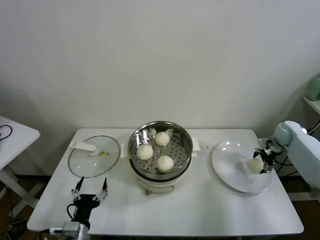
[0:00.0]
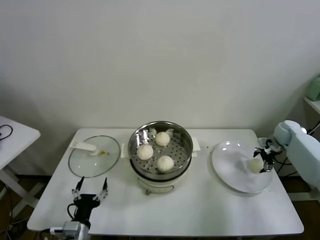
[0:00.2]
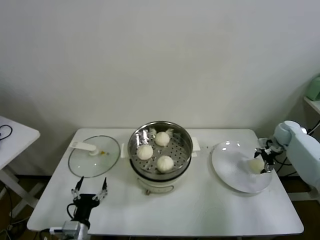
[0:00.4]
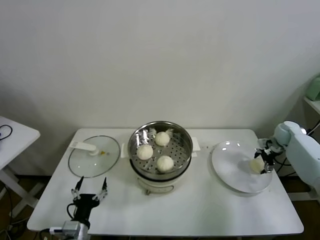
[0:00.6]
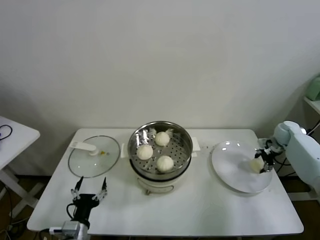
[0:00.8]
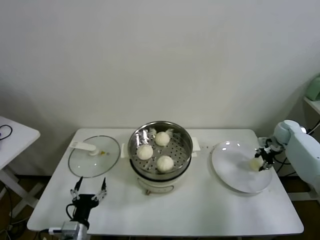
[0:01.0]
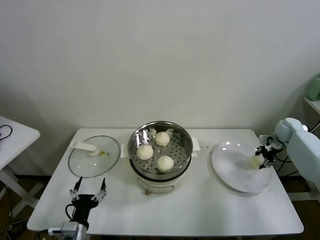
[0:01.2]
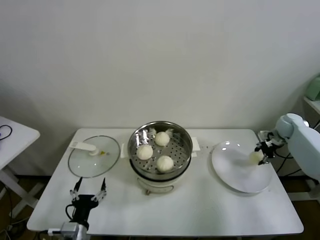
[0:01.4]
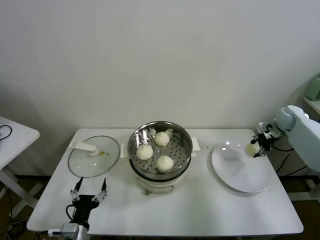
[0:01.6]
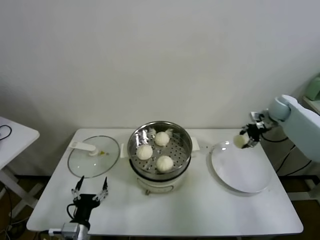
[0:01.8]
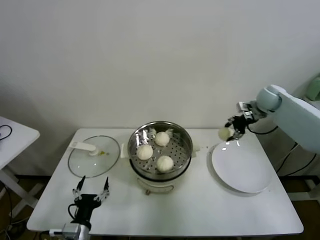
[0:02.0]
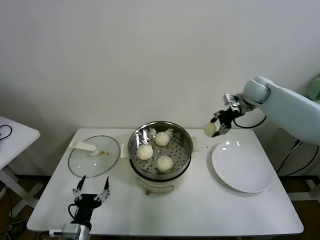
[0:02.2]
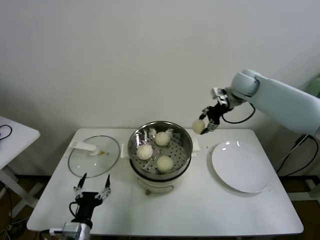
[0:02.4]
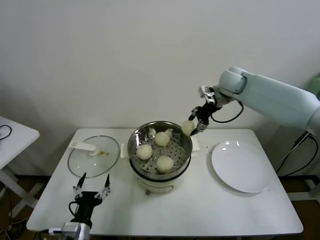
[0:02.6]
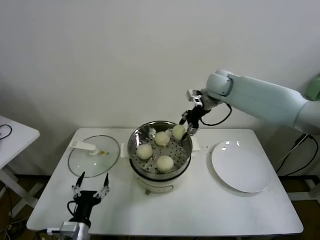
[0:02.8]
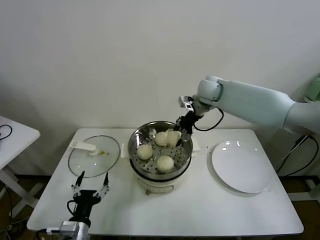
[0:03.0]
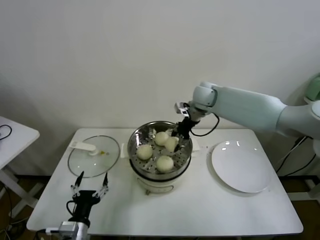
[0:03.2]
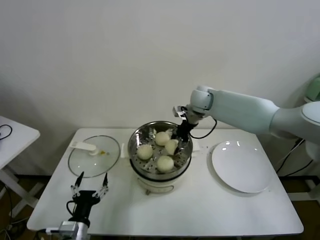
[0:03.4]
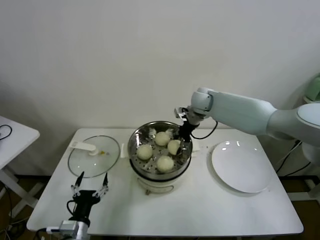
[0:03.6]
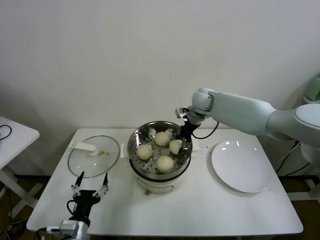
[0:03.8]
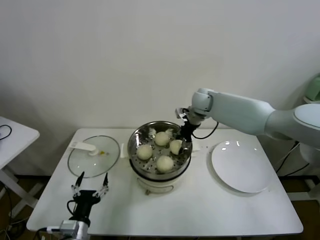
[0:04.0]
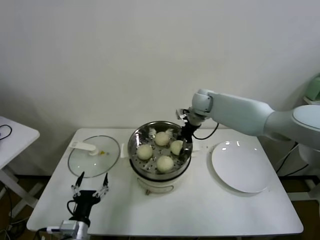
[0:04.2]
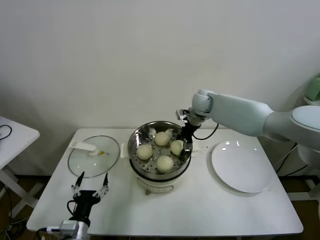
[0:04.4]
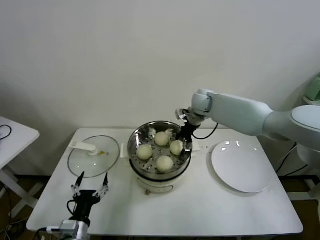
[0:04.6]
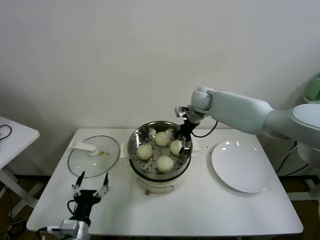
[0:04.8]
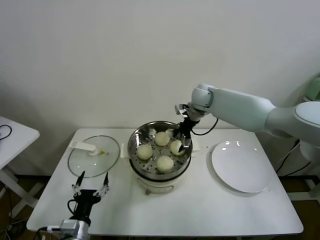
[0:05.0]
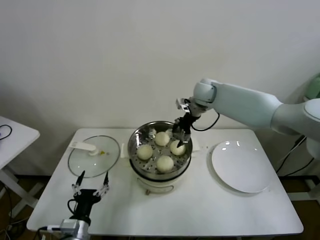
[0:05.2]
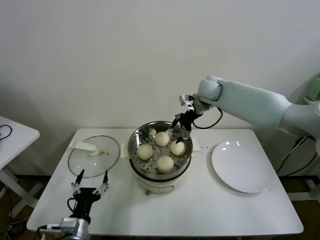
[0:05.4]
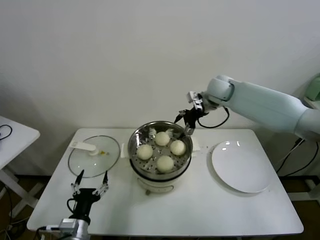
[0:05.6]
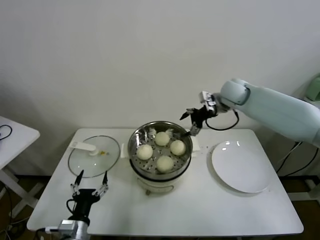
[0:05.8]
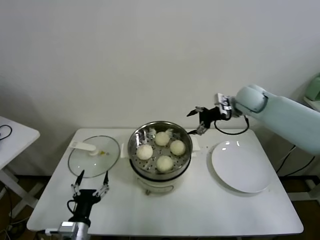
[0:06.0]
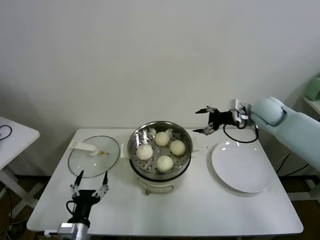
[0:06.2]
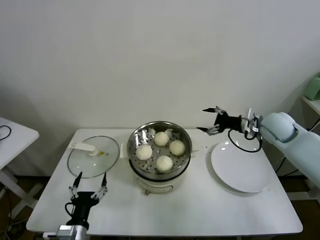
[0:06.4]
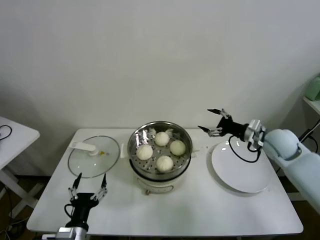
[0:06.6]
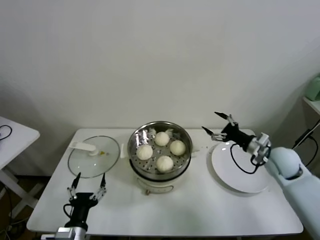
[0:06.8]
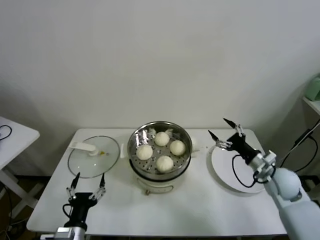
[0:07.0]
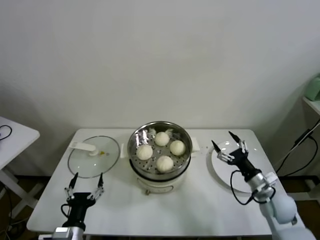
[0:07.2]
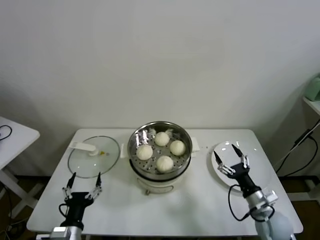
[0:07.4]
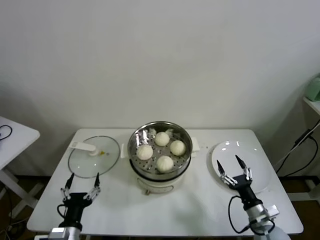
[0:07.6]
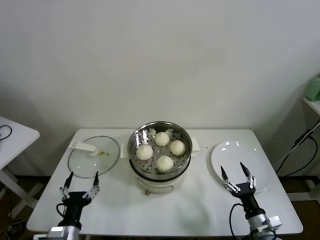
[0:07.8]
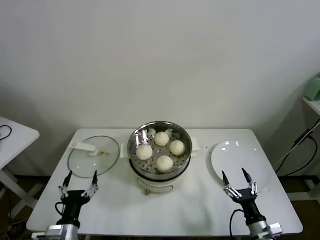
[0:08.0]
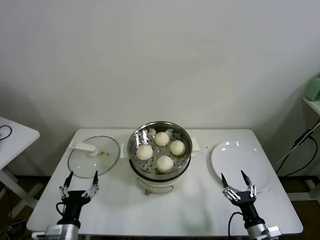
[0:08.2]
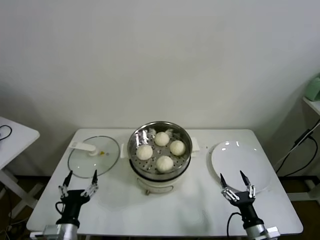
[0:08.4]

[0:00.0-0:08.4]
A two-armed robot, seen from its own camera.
Task of the whole recording: take steamed baozi put them in steamer.
Step, 0:01.0 to 0:04.4: Place the baozi on the steamer with right gripper.
0:00.0 to 0:01.4: The right gripper closes.
0:01.4 to 0:02.8: The right gripper travels to the left and upward by approximately 35 cm.
0:02.8 to 0:04.2: The right gripper heads downward, covering about 10 cm.
0:04.2 to 0:05.6: The right gripper heads upward, covering approximately 5 cm, and opens up.
0:05.6 to 0:07.0: The right gripper heads backward, downward and to the right, covering approximately 35 cm.
0:07.0 to 0:08.4: The right gripper shifts about 25 cm backward and downward.
